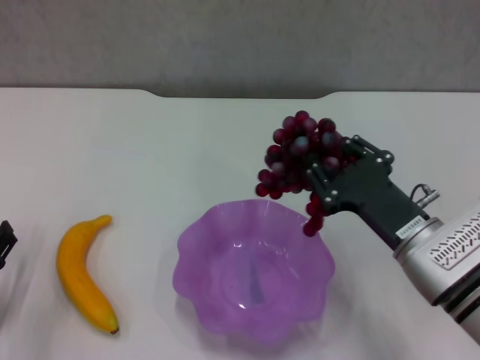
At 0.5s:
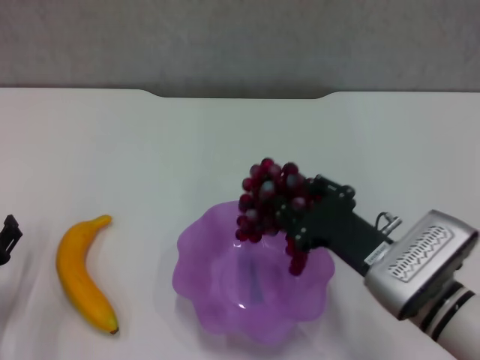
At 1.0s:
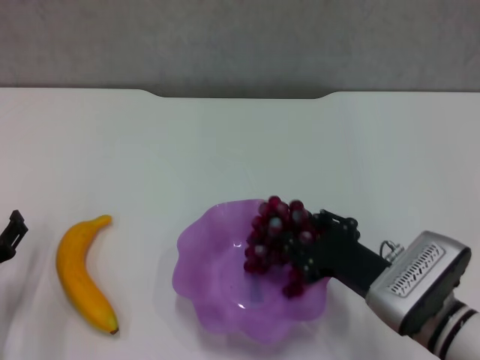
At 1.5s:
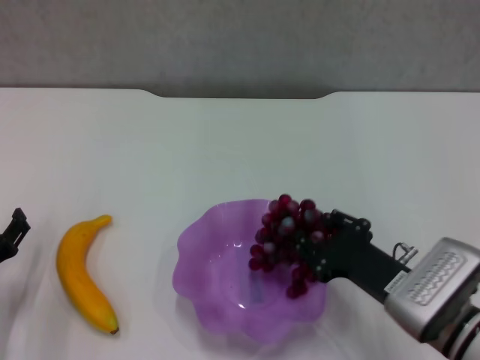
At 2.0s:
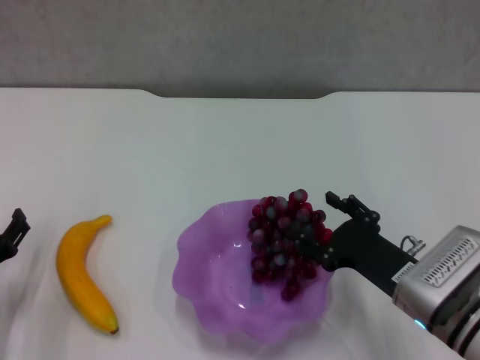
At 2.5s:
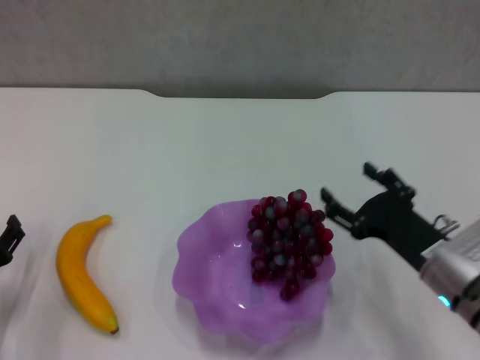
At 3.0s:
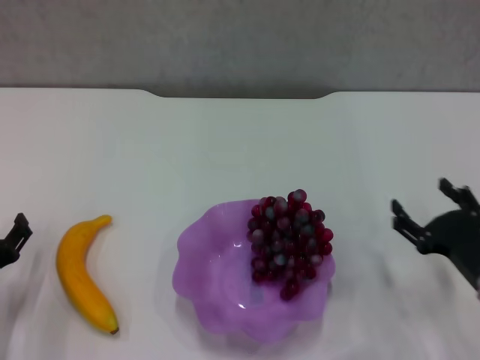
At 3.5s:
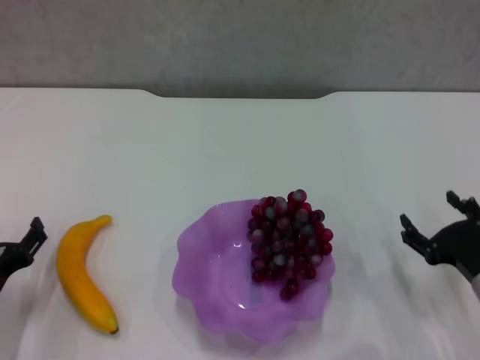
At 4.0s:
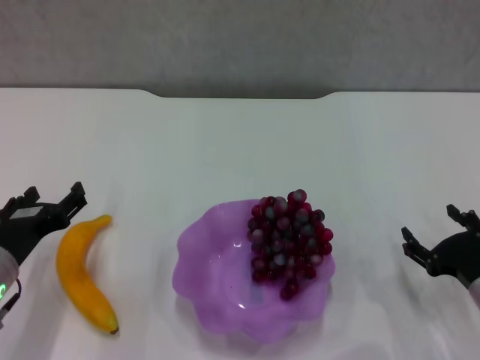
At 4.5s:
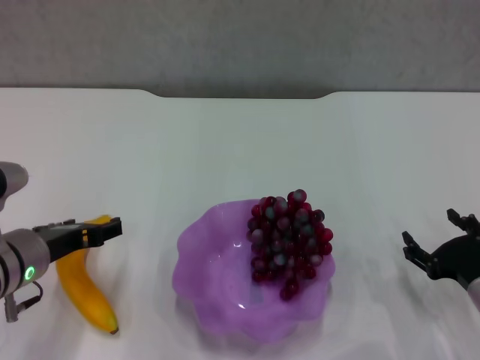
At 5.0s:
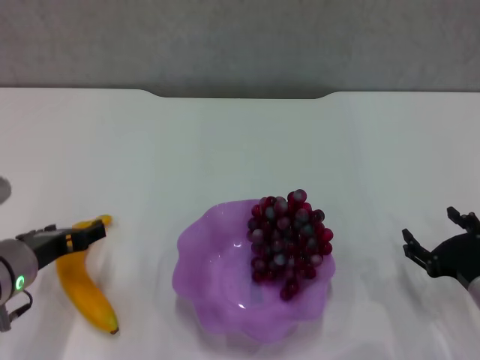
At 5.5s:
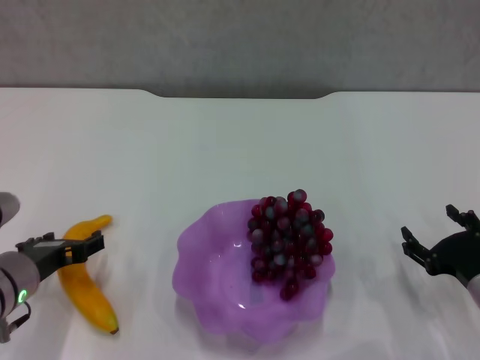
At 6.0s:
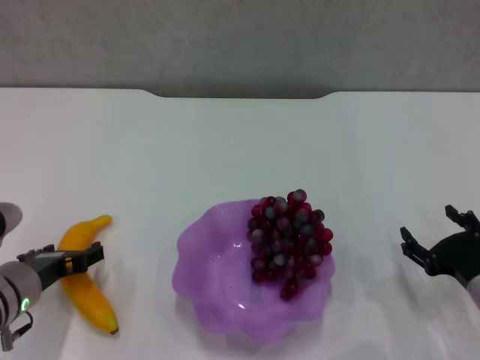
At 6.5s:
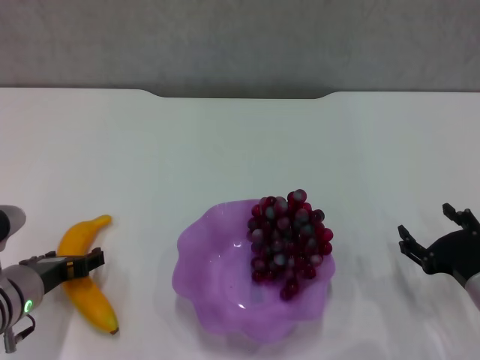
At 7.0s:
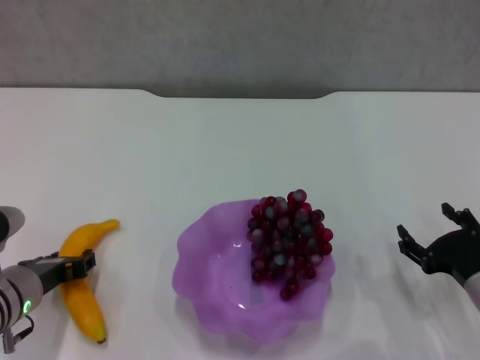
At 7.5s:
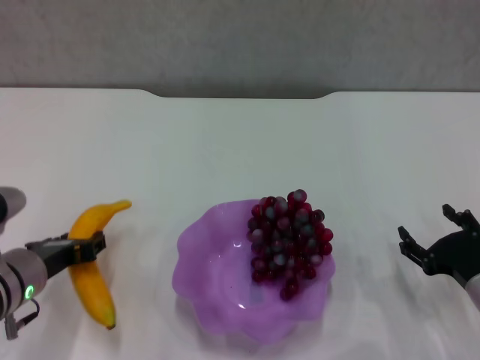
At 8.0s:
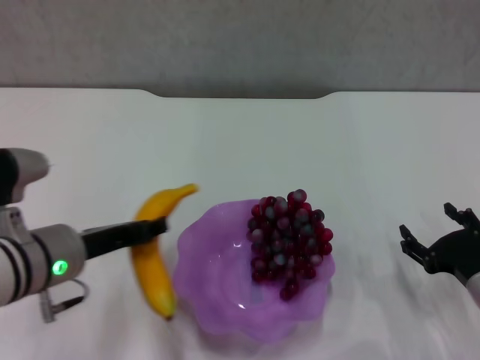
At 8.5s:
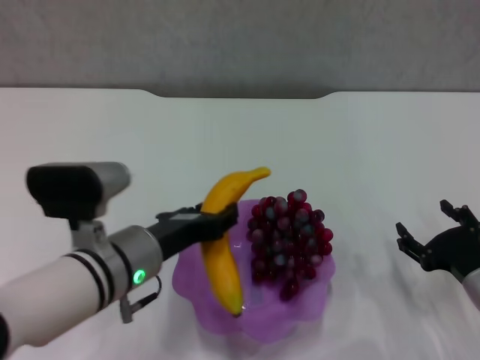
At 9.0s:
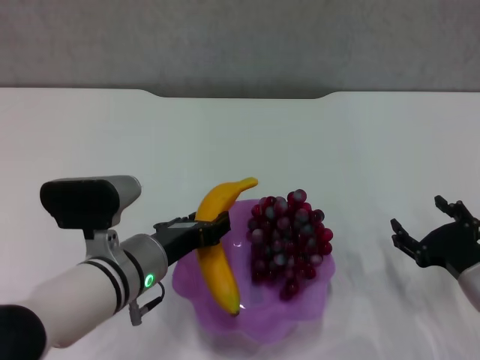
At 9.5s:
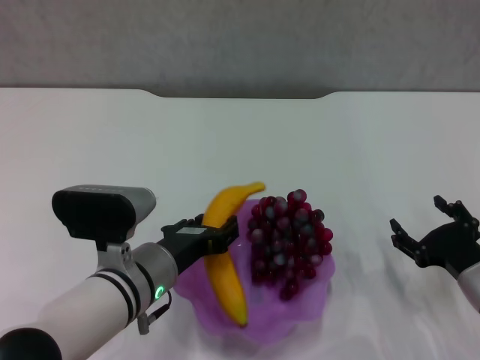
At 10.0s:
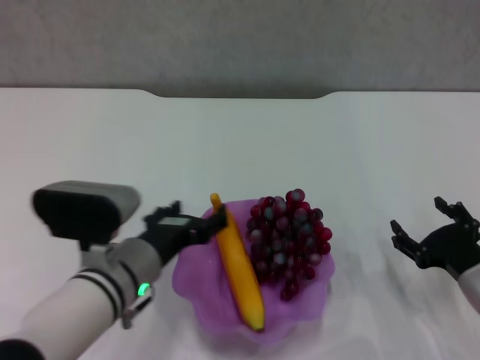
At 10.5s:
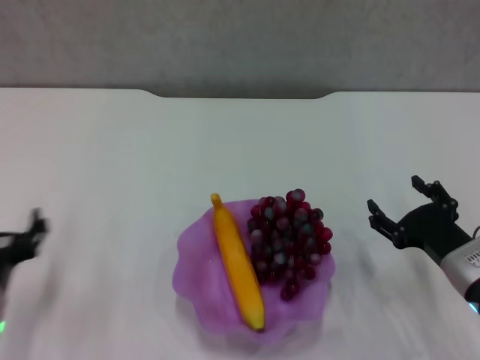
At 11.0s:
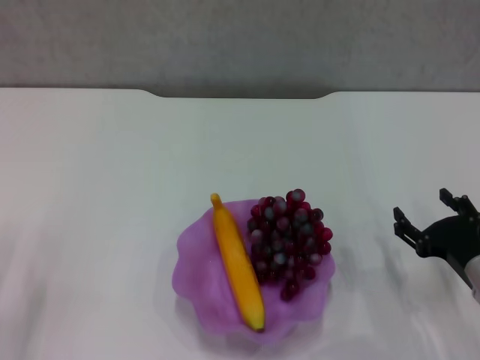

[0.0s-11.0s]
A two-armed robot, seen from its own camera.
Step, 0.0s to 2.0s: Place the grape in the purple plate with right gripper.
Step, 2.5s to 7.0s: Grasp the banana with left gripper.
Step, 7.5s to 10.0s: Place the banana in the purple plate with left gripper.
0.0s to 2.0s: The right gripper opens its fingers.
2.0s to 3.5s: The right gripper moves to the right, about 10 cm, and opens its fingers.
3.5s to 5.5s: The left gripper goes approximately 5 cm upward.
5.5s to 7.5s: The left gripper closes its fingers.
7.5s to 9.0s: The left gripper travels to the right by about 10 cm.
9.0s to 11.0s: The left gripper shifts about 20 cm to the left, and opens.
